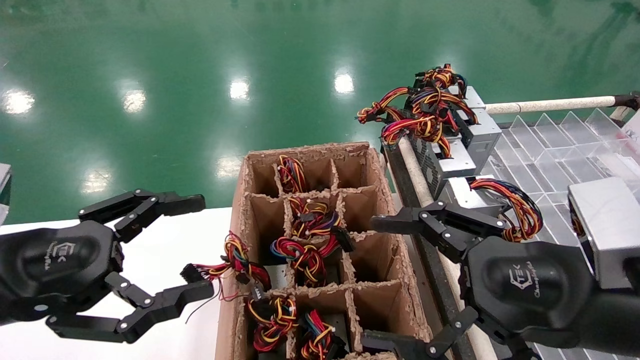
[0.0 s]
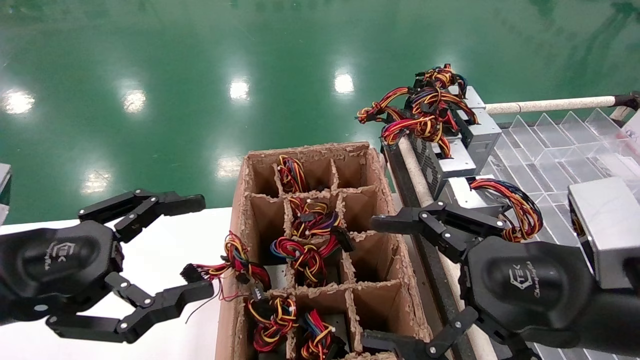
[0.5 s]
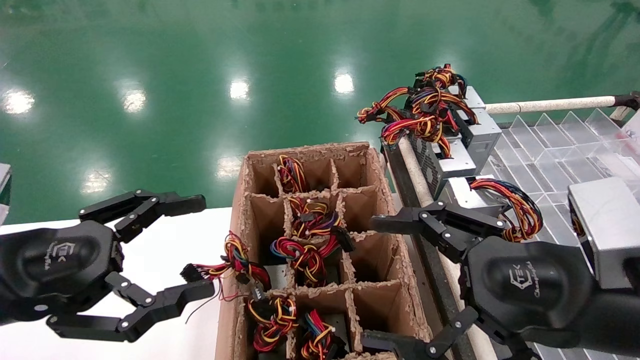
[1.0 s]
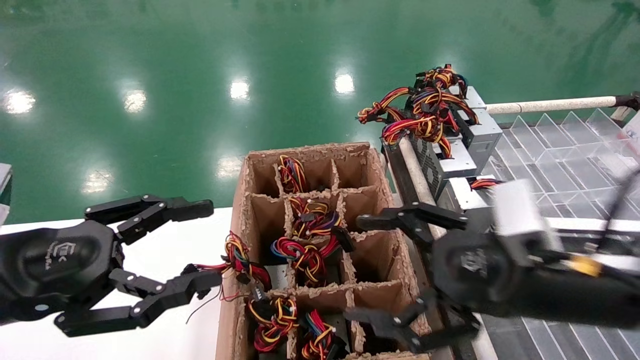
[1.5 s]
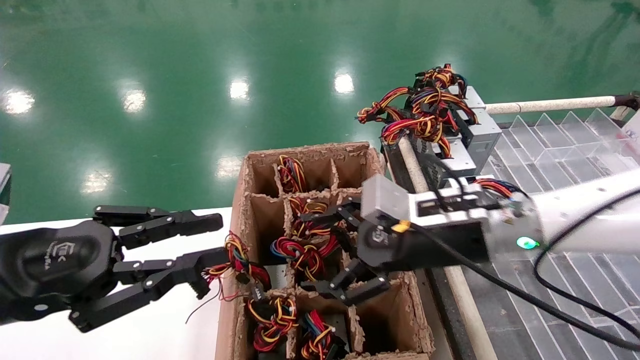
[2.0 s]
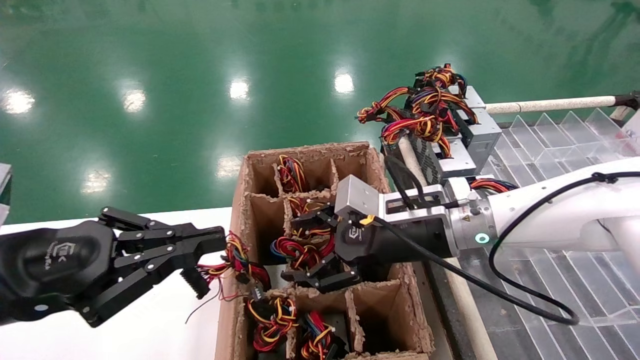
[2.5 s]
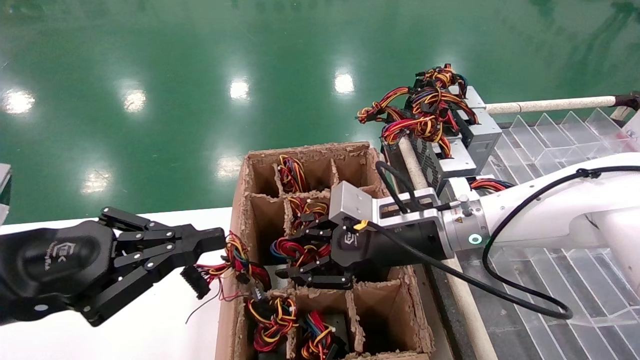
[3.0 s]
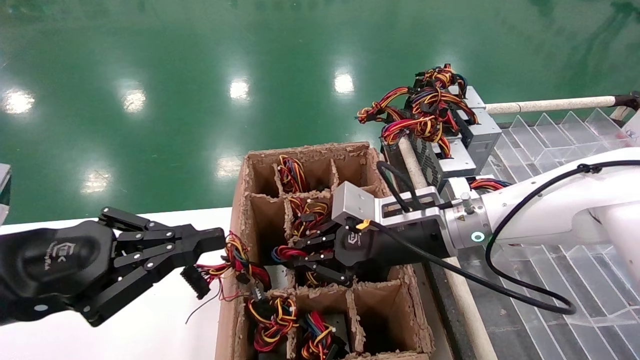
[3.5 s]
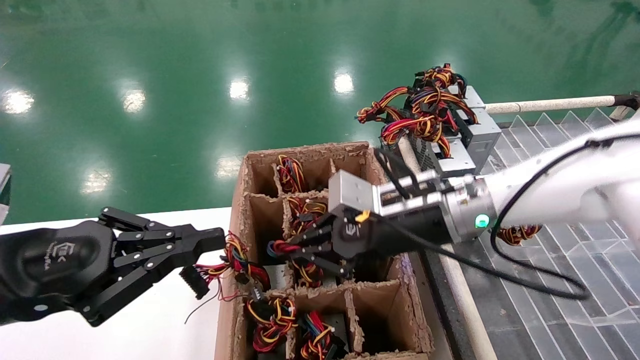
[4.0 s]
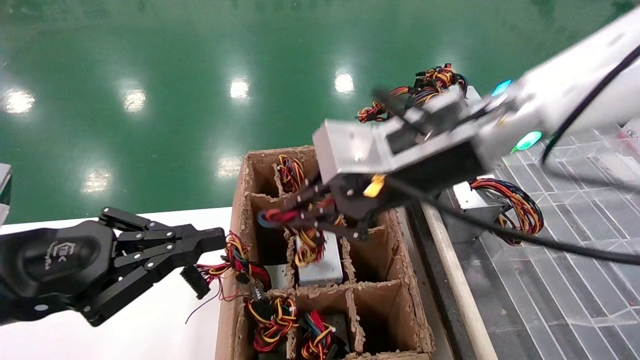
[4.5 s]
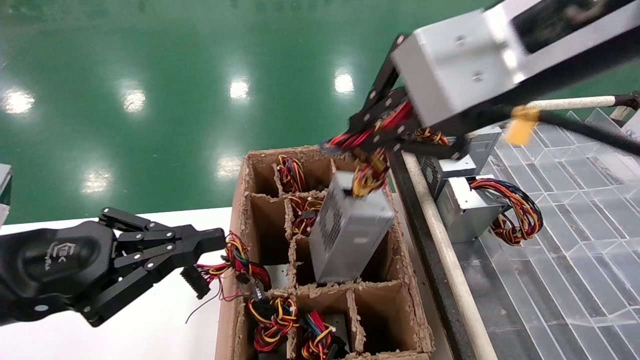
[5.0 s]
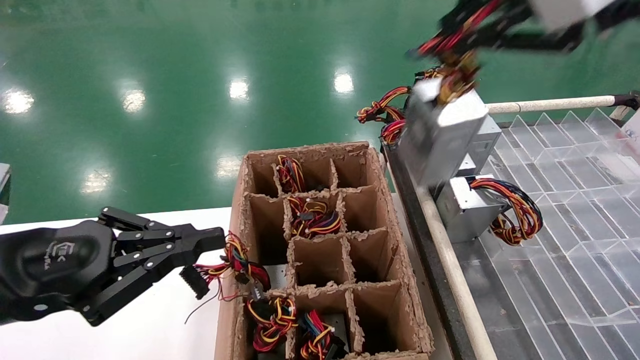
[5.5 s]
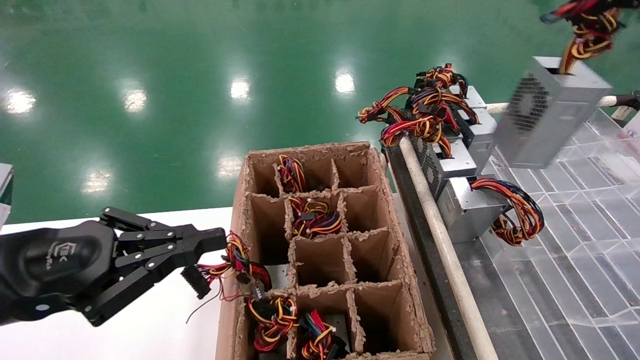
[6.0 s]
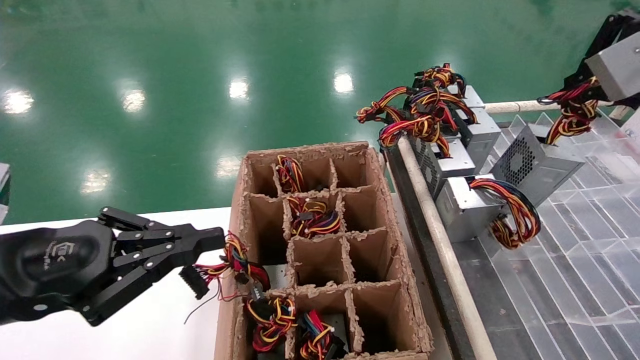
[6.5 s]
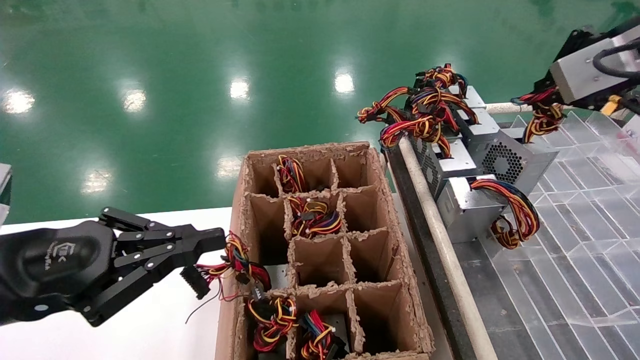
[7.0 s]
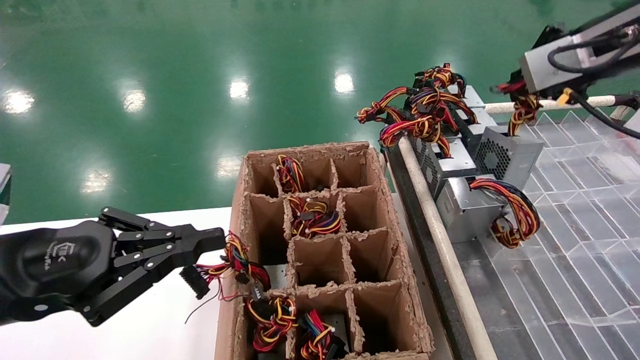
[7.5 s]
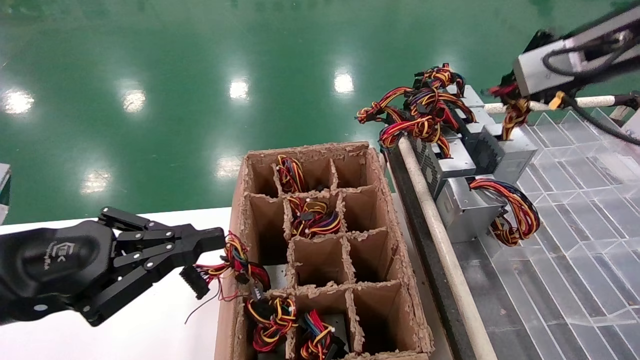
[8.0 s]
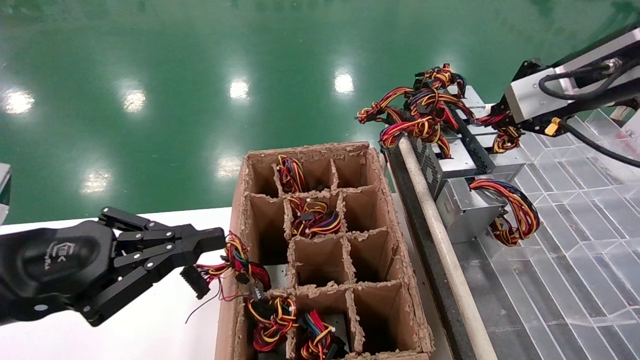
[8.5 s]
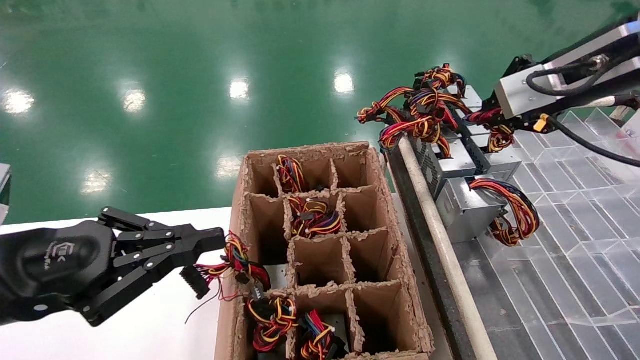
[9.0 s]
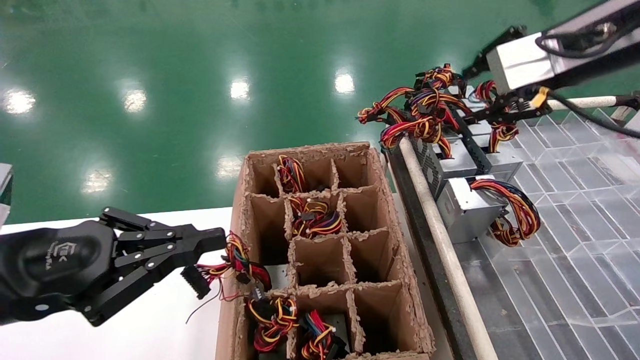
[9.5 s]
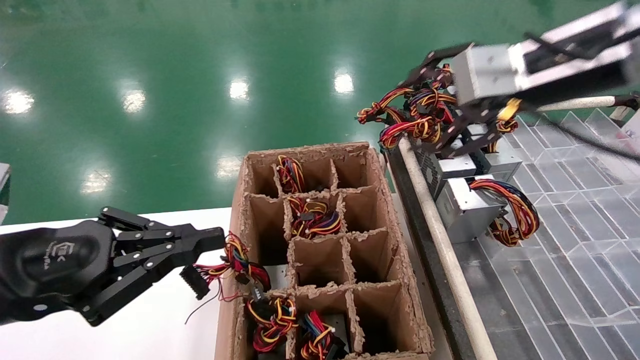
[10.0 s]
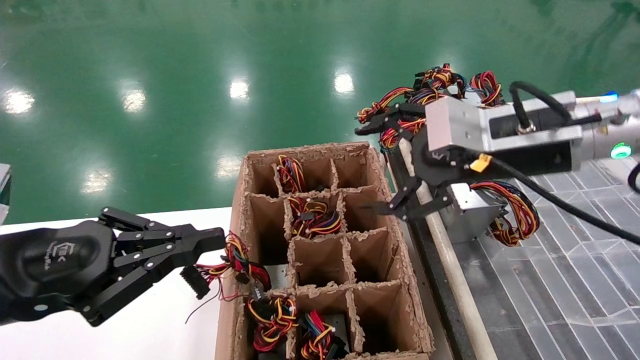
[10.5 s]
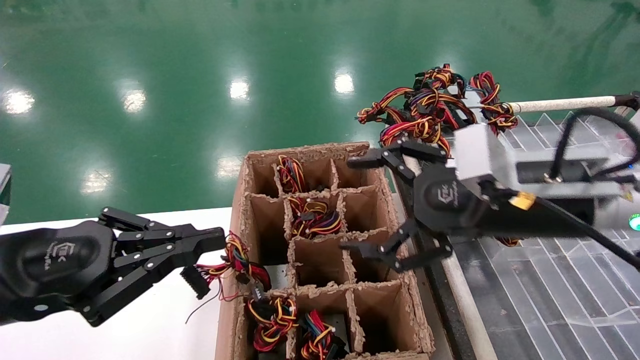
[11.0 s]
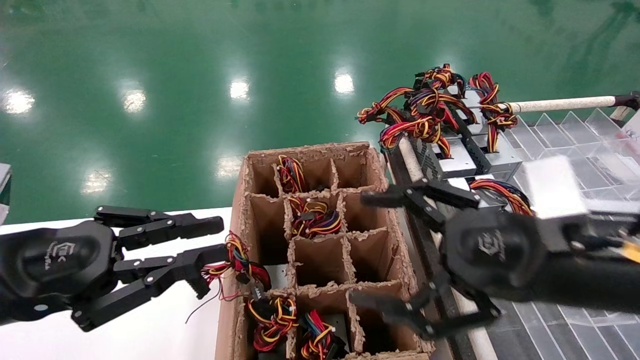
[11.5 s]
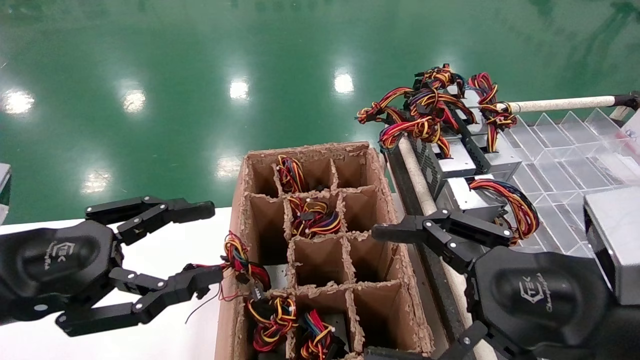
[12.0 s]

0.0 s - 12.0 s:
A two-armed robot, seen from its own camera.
Step, 2.0 s - 3.5 s: Grab the main unit power supply from the containment box.
Step, 4.0 s - 9.5 s: Place the main unit power supply in the designated area.
0.0 s - 2.0 s: The right gripper shifts roughly 15 cm forward and to the left. Meanwhile the left gripper closes.
2.0 s - 4.0 s: The right gripper moves about 5 cm, and closes its fingers, while the left gripper closes its fingers.
4.0 s - 6.0 s: The right gripper moves upward, backward and to the right, some 35 cm.
6.0 s - 8.0 s: The right gripper goes roughly 15 cm forward and downward.
8.0 s - 10.0 s: The right gripper travels to the left by about 10 cm, and opens up.
10.0 s - 12.0 s: The left gripper opens its fingers. The right gripper goes approximately 25 cm downward and backward.

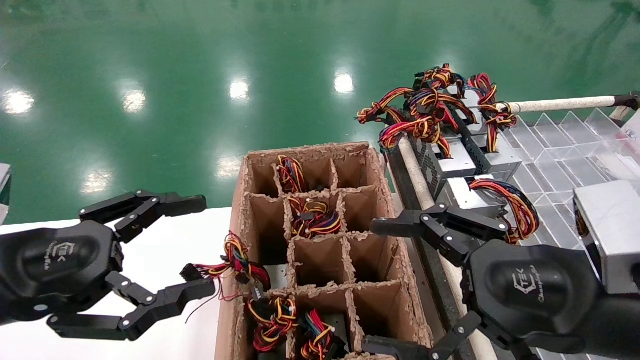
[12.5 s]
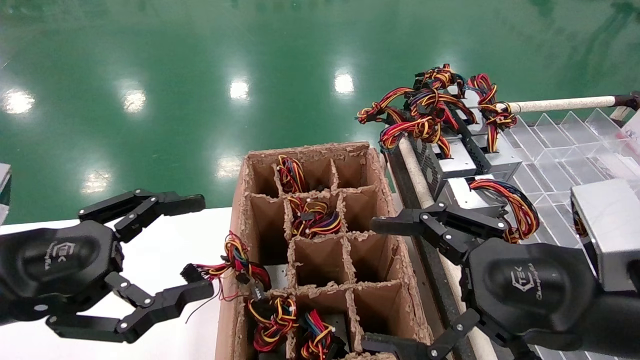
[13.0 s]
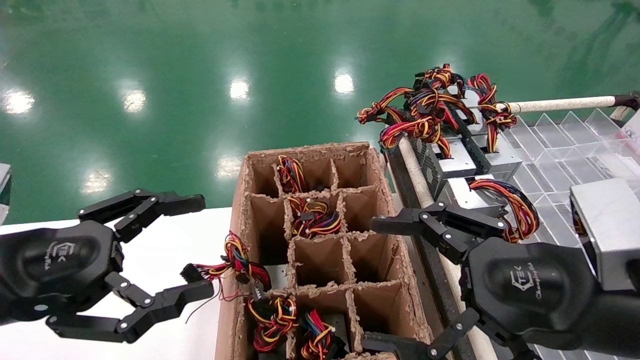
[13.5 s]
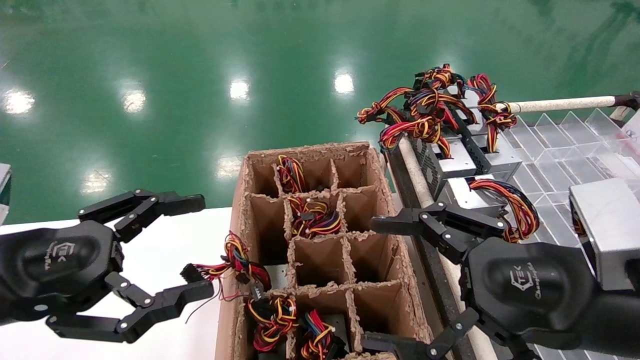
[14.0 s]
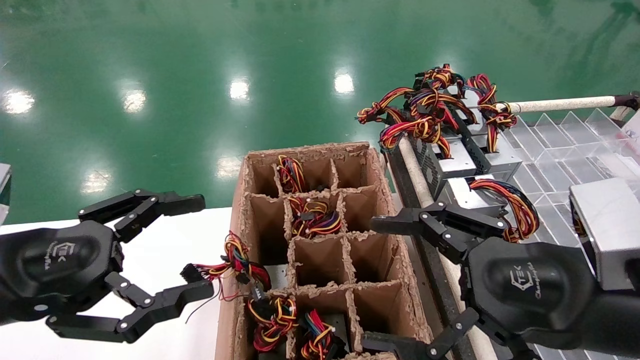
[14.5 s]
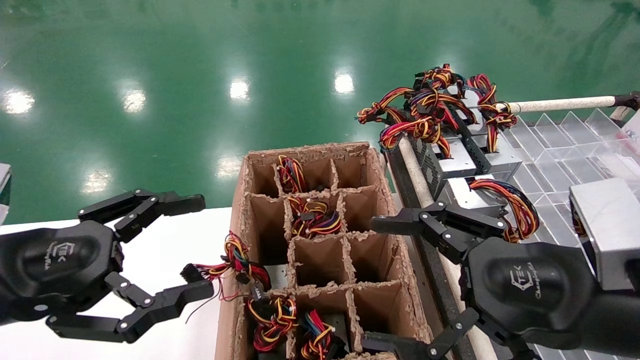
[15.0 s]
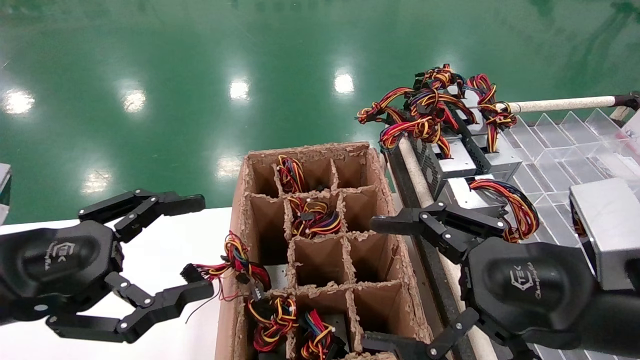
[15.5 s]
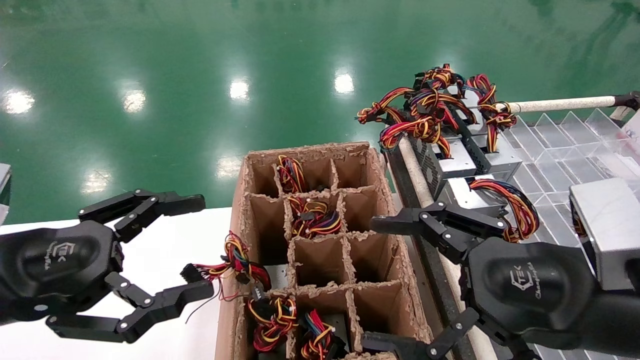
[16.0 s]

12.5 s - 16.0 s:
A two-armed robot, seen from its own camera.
12.5 s - 16.0 s: Neither gripper changes place.
